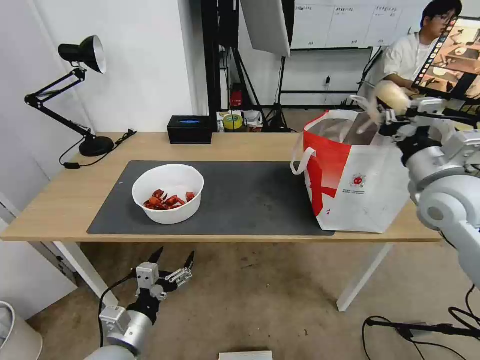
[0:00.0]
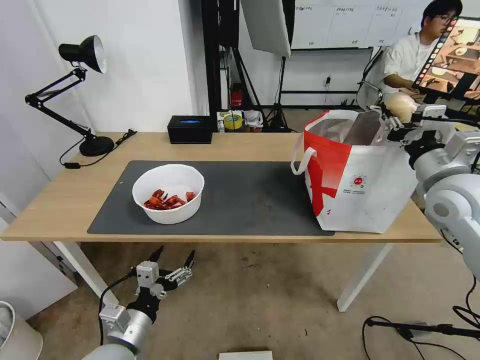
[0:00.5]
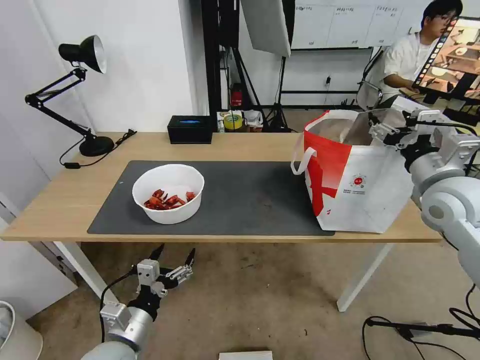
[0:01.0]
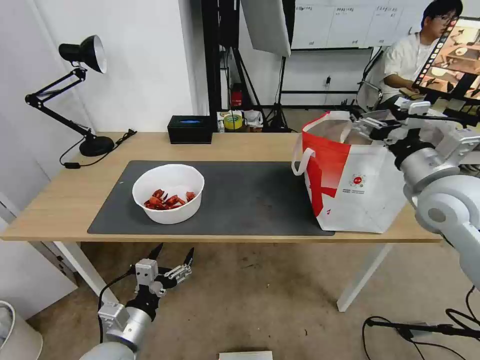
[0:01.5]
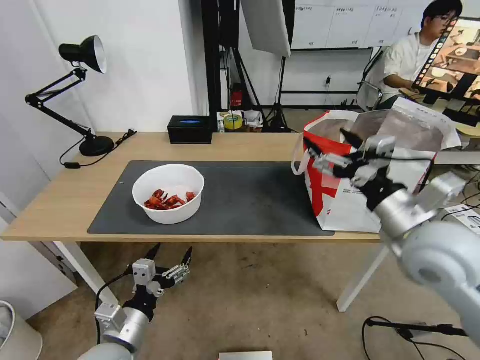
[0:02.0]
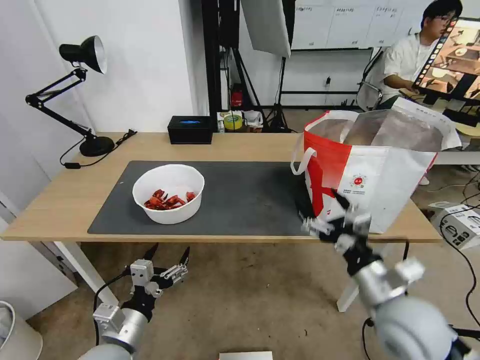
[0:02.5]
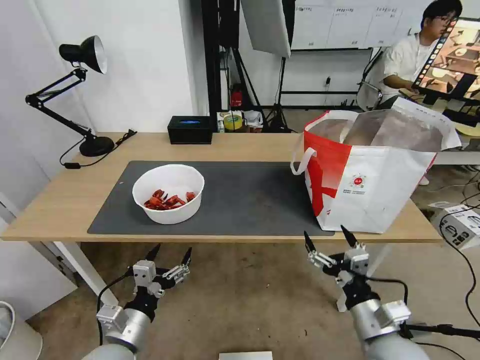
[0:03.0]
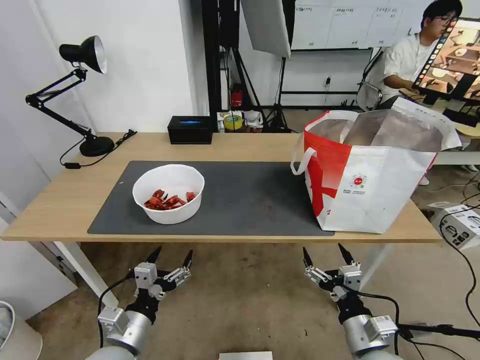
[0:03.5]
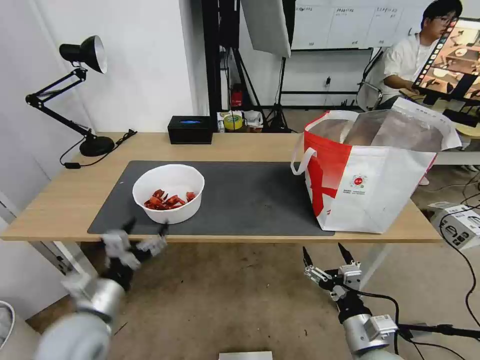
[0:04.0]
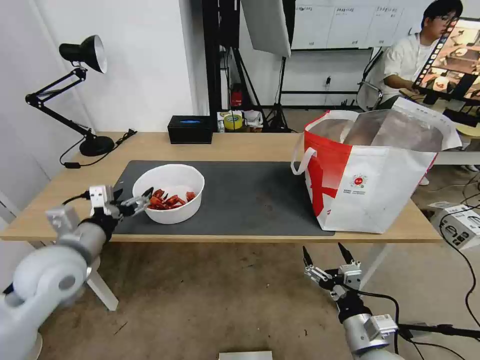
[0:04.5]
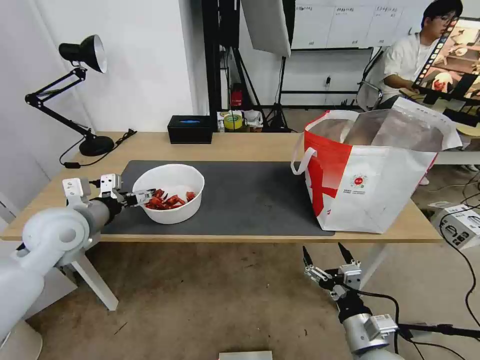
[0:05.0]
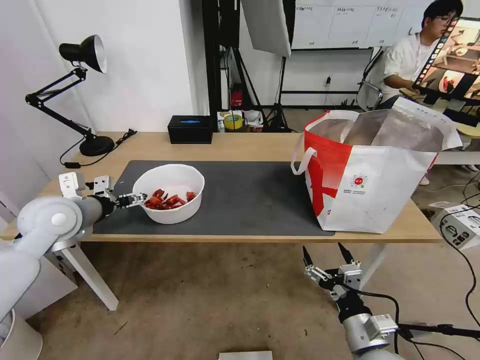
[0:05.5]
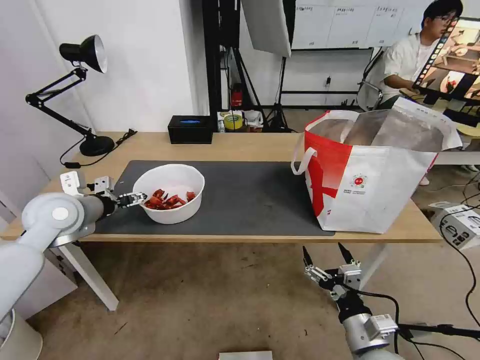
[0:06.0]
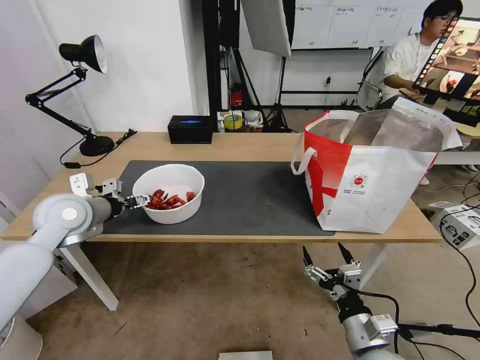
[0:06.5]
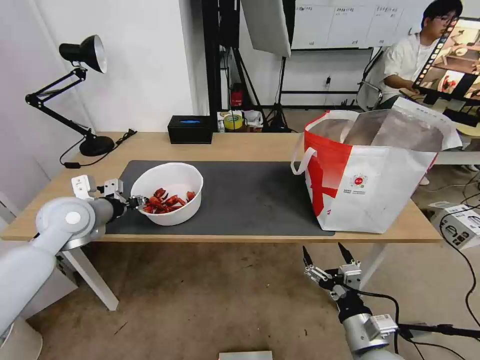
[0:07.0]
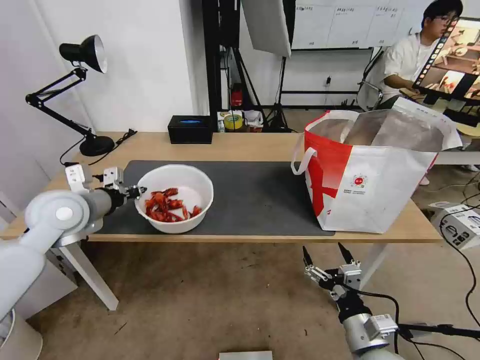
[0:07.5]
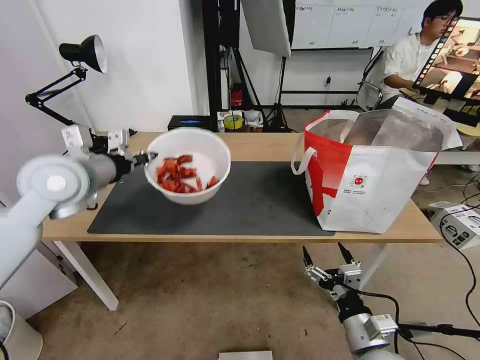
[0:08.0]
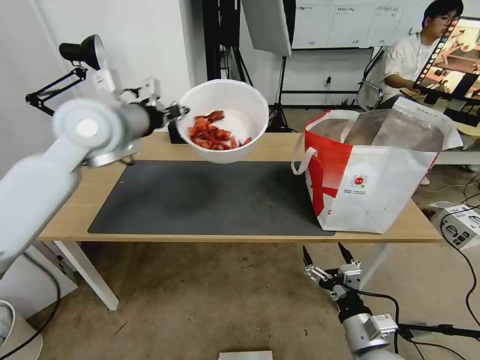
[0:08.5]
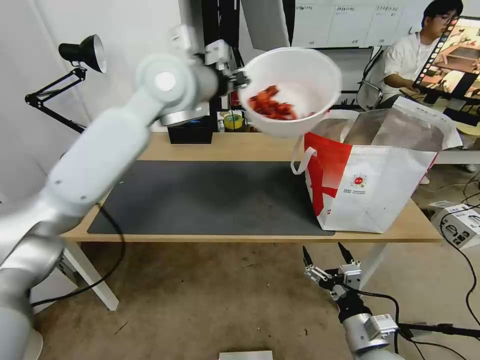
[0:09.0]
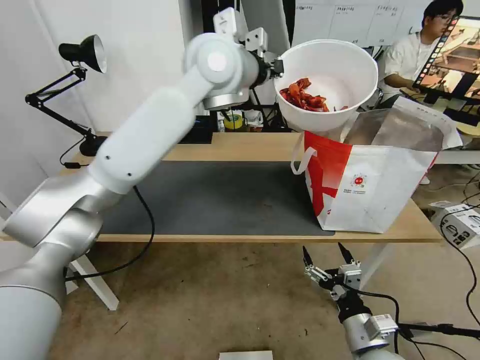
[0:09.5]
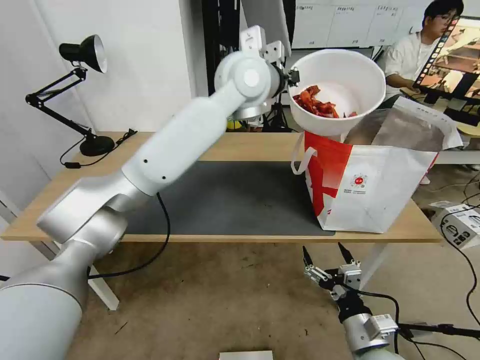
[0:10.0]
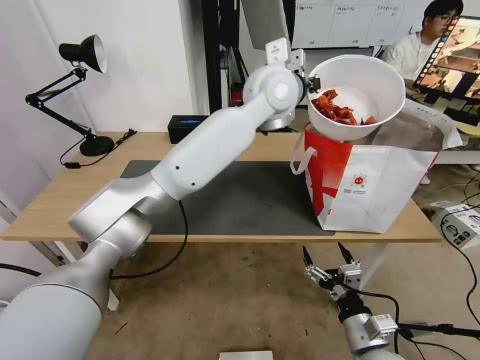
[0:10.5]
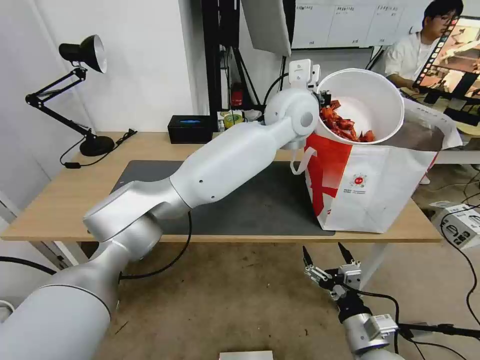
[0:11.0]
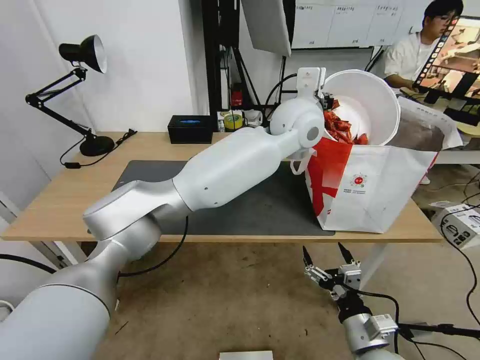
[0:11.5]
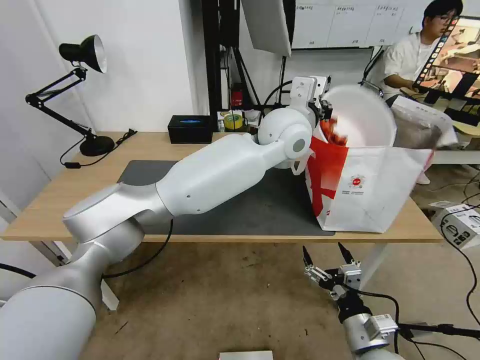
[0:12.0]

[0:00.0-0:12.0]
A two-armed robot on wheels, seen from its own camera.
Task of the whole recording: Pick up the trash from the table and place it into the takeout bag.
0:00.0 to 0:02.0: The right gripper is displaced backward and to the left by approximately 10 cm, and opens.
0:02.0 to 0:04.0: The left gripper shifts roughly 5 cm upward. The right gripper is displaced downward and backward by roughly 25 cm.
0:04.0 to 0:06.0: The left gripper travels forward, upward and to the left by about 25 cm.
0:06.0 to 0:08.0: The left gripper heads upward and to the right, covering some 10 cm, and closes its fingers.
0:08.0 to 0:10.0: The left gripper moves to the right and forward, some 35 cm.
0:10.0 to 0:12.0: The left gripper moves downward and to the right, approximately 10 cm.

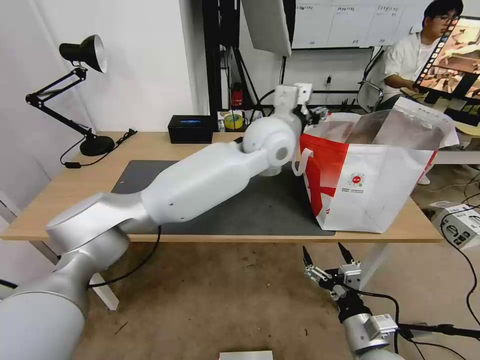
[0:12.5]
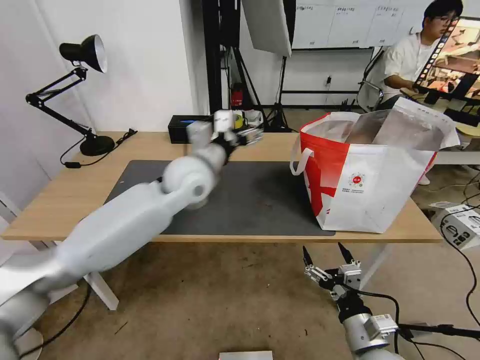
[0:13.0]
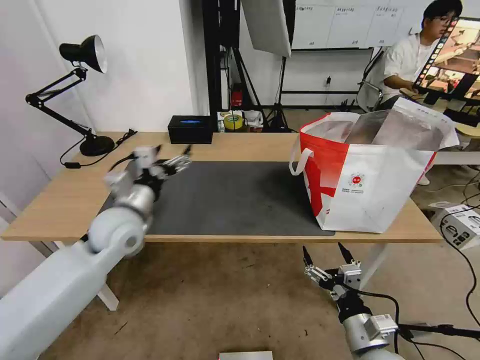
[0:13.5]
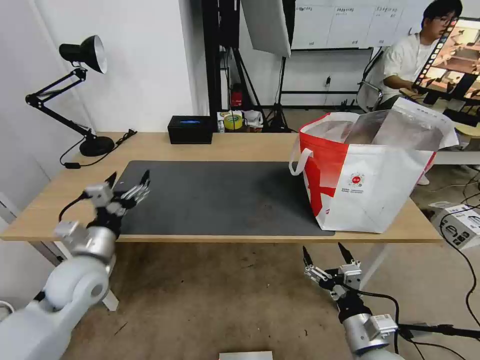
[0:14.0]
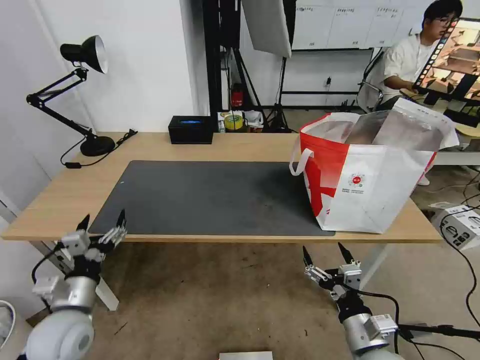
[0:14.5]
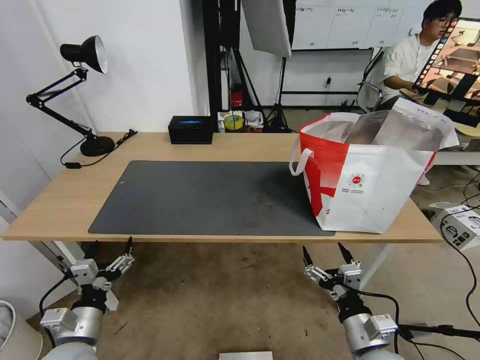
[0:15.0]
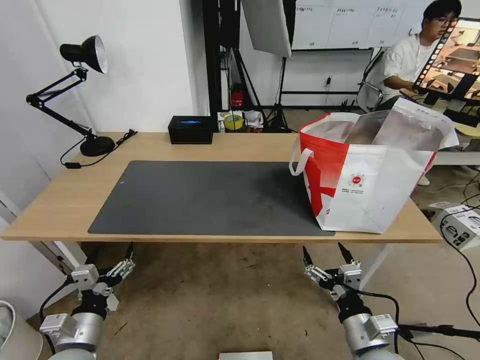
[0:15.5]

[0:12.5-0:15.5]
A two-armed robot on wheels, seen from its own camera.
Task of the whole recording: Pick up the trash from the table and place it into the takeout bag.
0:12.5 to 0:14.0: The left gripper is displaced to the left, downward and backward by roughly 40 cm.
0:14.0 to 0:15.5: The left gripper travels backward and downward by about 20 cm.

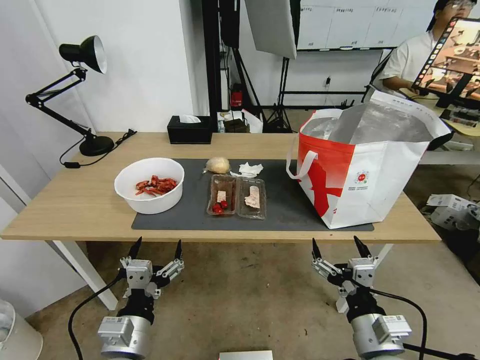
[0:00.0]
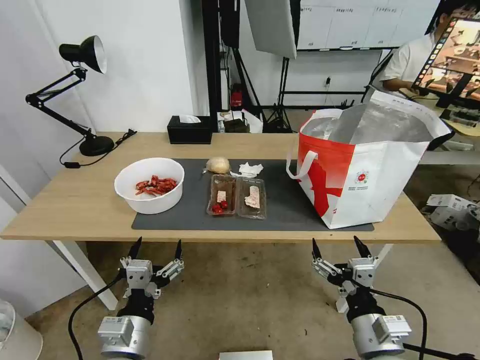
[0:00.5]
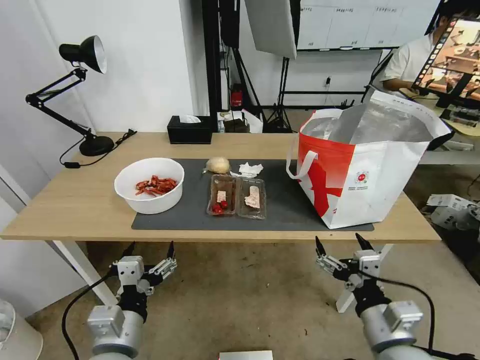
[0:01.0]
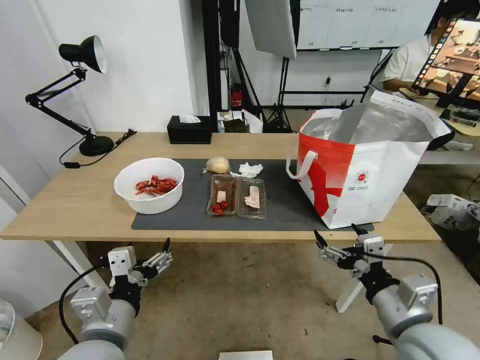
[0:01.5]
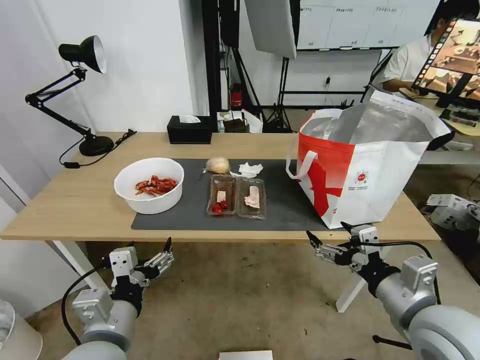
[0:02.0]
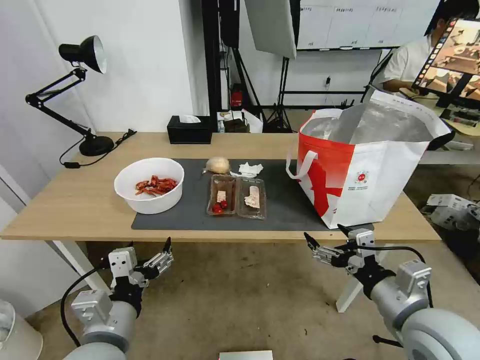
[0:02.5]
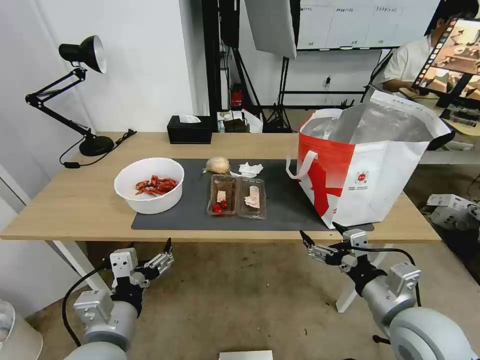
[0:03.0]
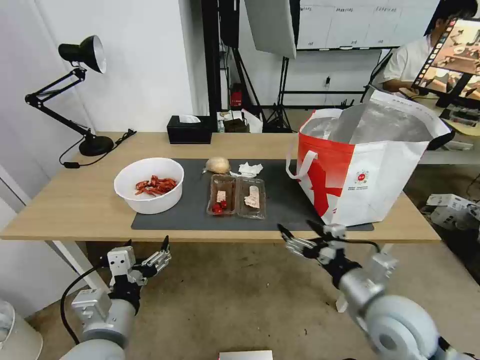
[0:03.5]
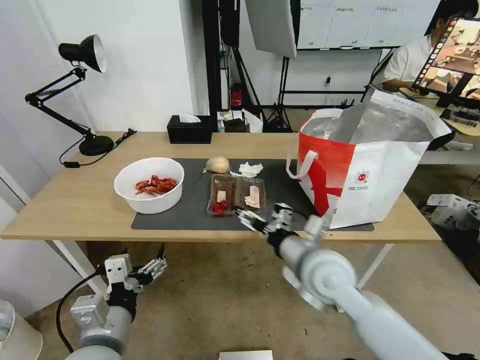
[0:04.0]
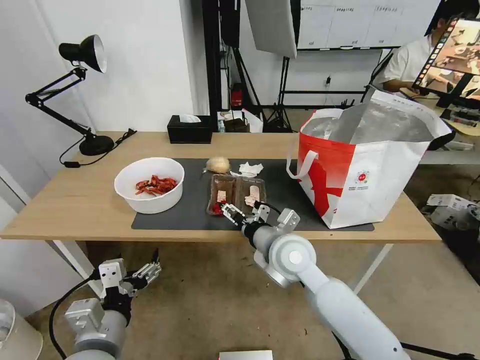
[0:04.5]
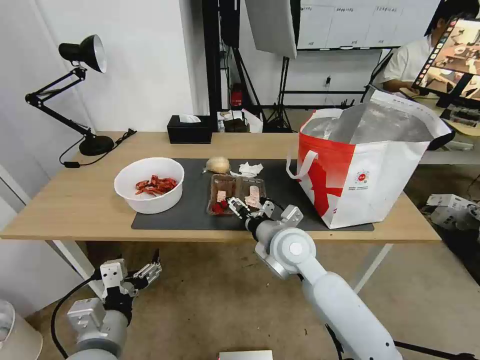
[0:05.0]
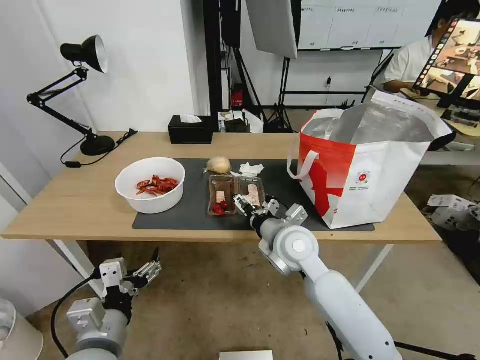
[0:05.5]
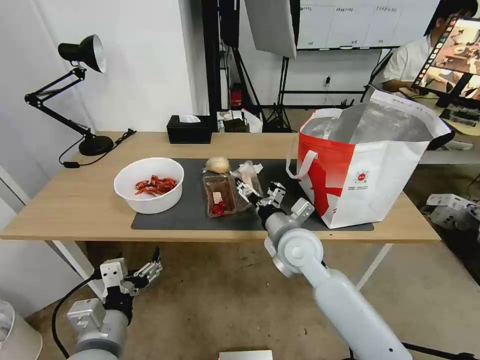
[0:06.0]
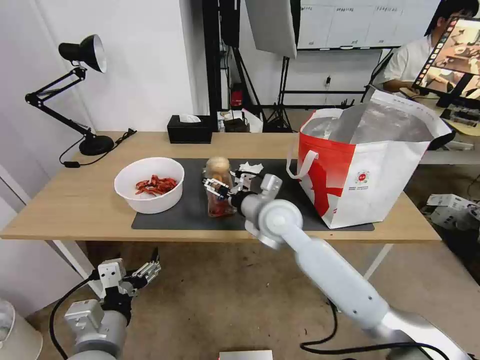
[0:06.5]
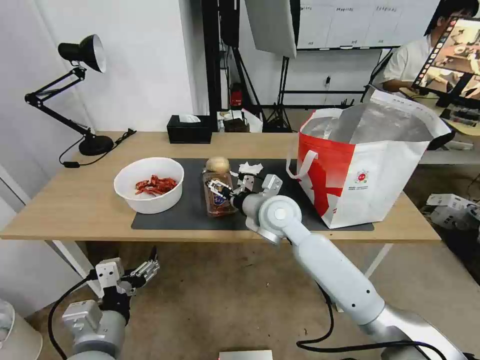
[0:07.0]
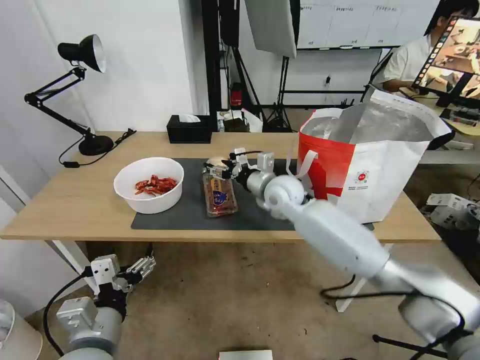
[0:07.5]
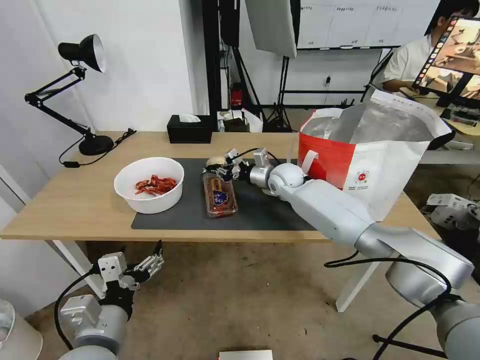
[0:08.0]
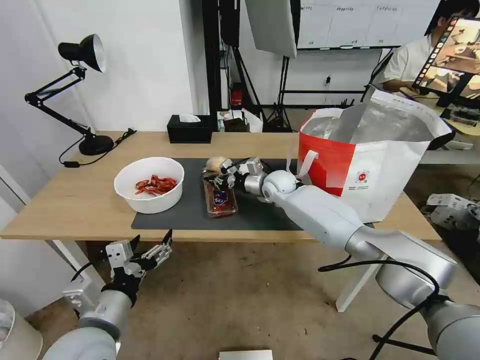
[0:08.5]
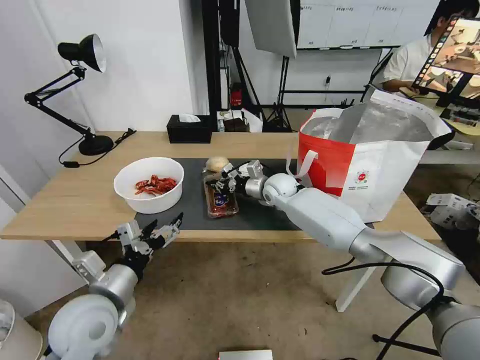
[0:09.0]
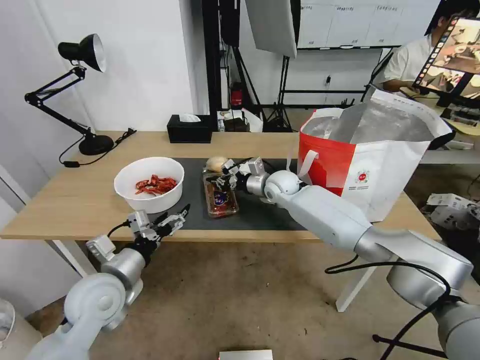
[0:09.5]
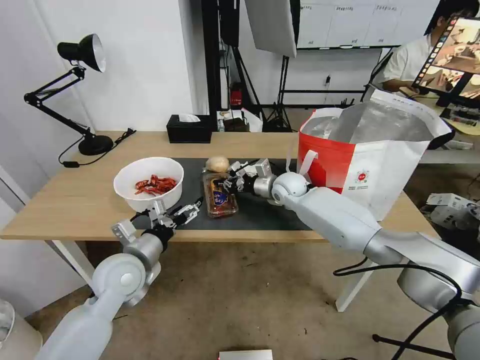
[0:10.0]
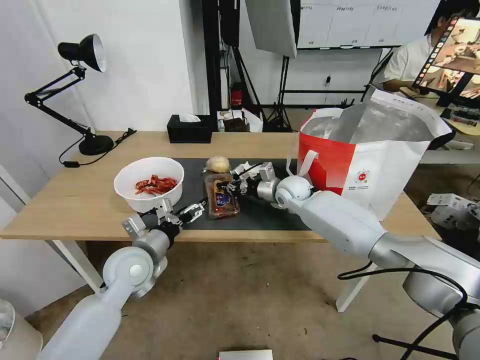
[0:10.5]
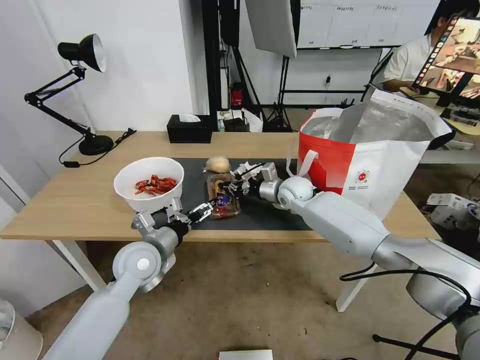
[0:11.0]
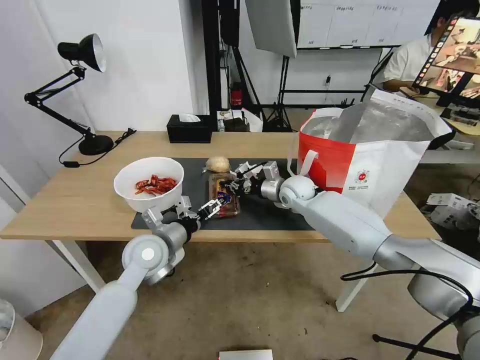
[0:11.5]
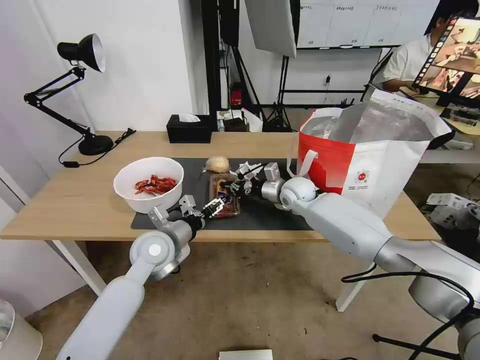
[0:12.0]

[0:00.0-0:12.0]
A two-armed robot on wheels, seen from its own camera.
Task of the whole recording: Pick up the trash from the table and place it into the takeout bag.
0:02.0 to 0:04.0: The right gripper heads to the left and forward, covering roughly 20 cm.
0:04.0 to 0:06.0: The right gripper is displaced forward by roughly 5 cm.
0:06.0 to 0:08.0: The right gripper is displaced forward by some 25 cm, and closes up.
0:08.0 to 0:10.0: The left gripper shifts about 15 cm forward.
0:10.0 to 0:12.0: The left gripper shifts approximately 5 cm forward.
